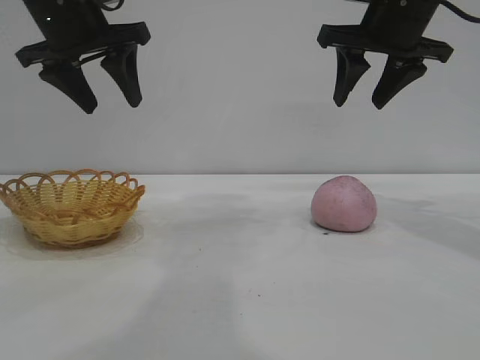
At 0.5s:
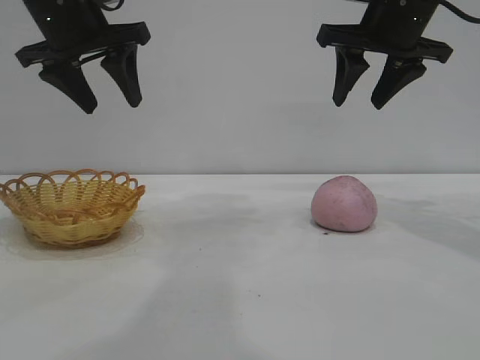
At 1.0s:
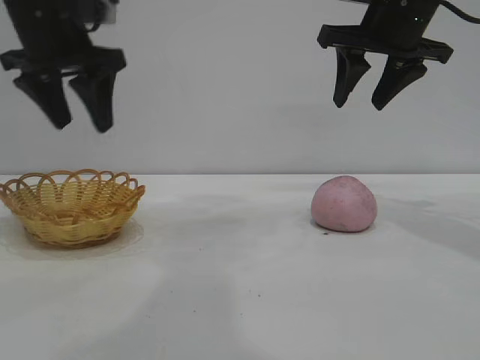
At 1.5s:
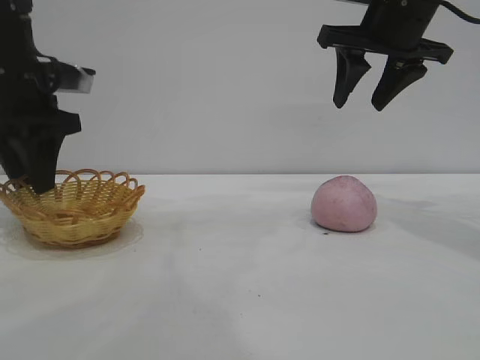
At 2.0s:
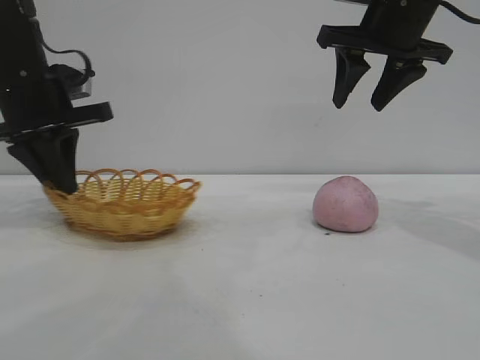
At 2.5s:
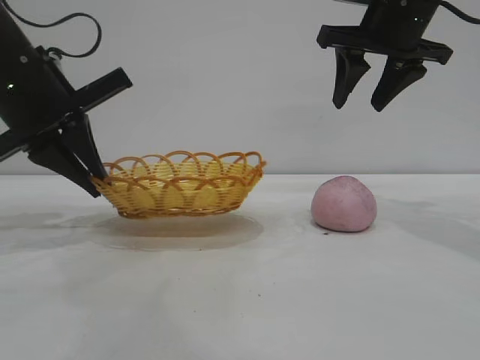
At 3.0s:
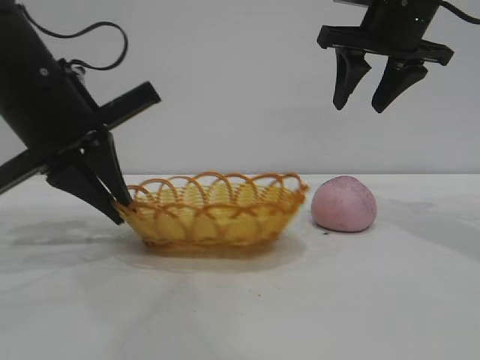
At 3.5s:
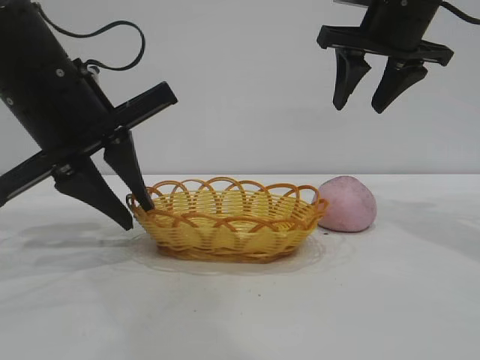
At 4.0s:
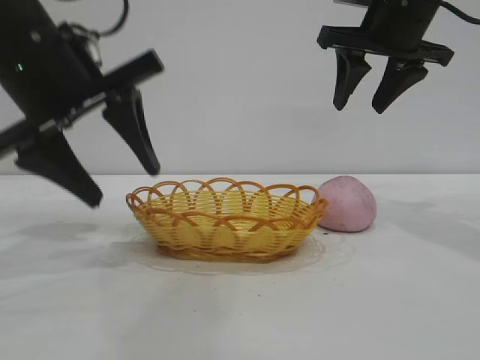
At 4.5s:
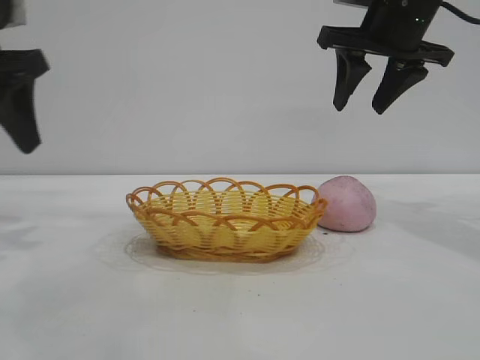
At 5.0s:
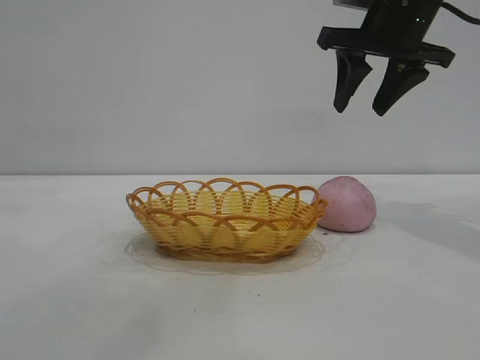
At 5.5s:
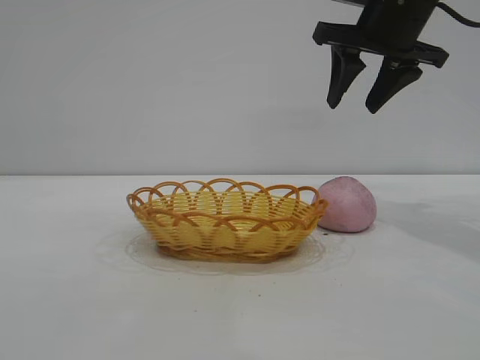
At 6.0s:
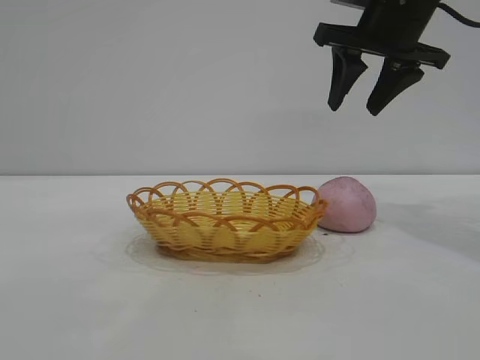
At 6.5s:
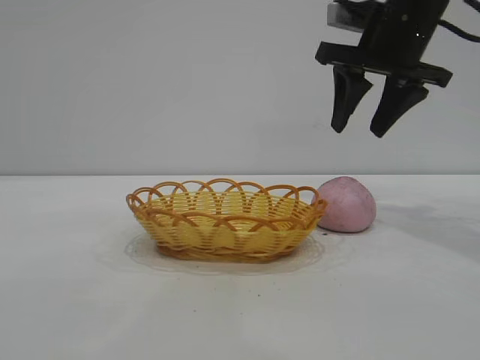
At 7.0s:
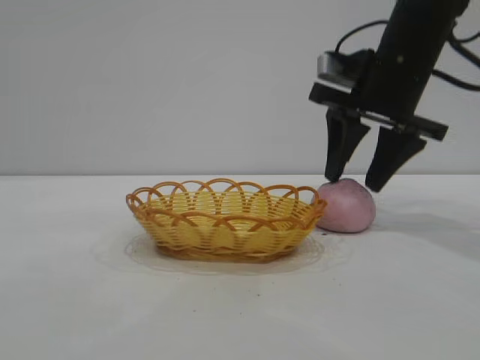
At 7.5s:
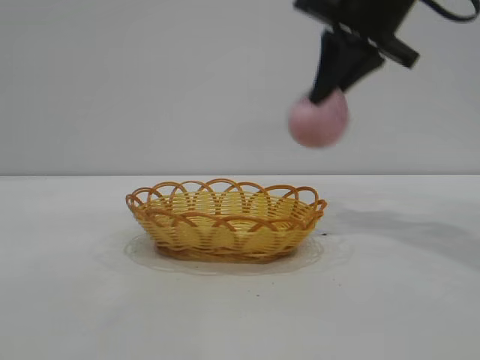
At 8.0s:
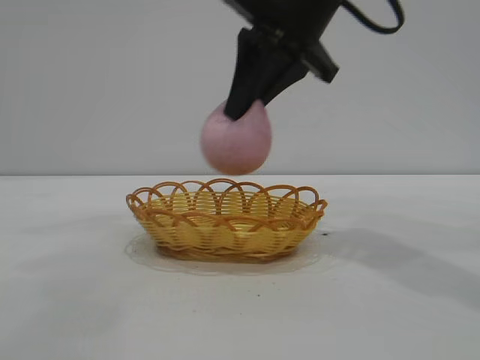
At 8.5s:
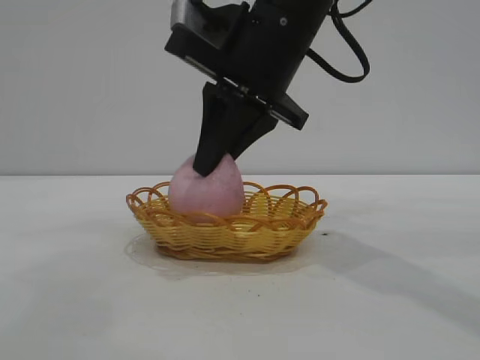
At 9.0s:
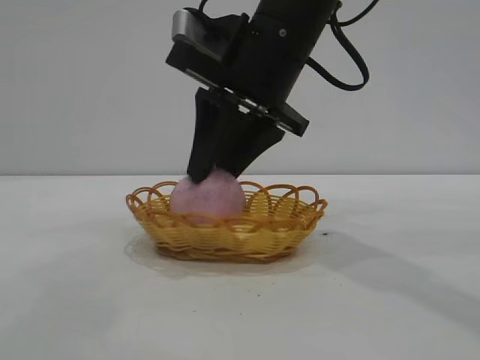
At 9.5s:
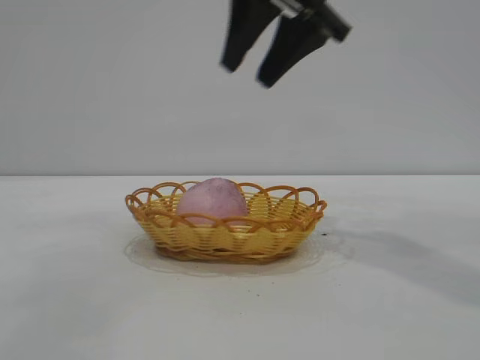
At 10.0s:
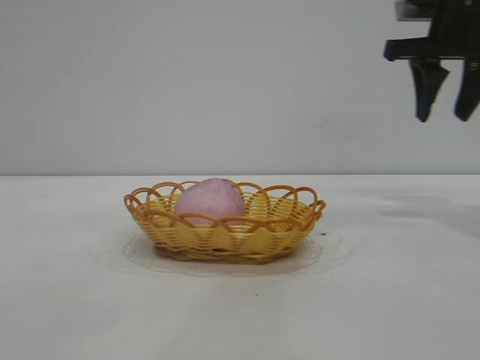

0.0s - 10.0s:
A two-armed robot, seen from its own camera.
Task of the whole recording: pick up the peach and put it into the basket.
Step, 0.0s - 4.0s: Move the basket to the center of view.
Step, 4.5s - 7.5s: Pick up the peach.
Step, 8.0s - 9.0s: place the peach into the basket.

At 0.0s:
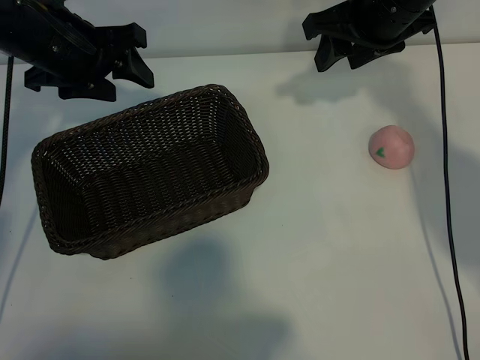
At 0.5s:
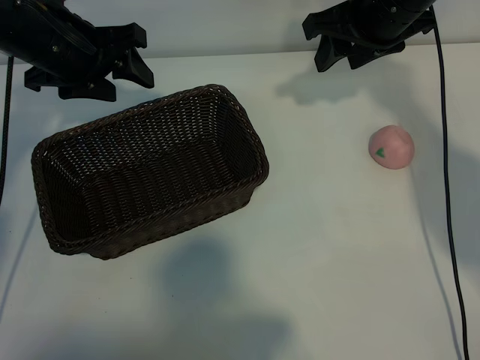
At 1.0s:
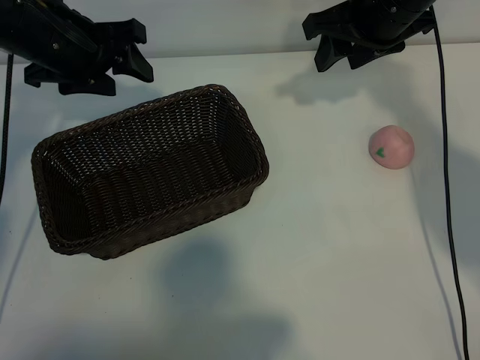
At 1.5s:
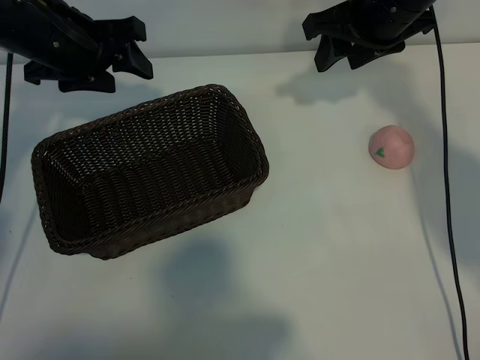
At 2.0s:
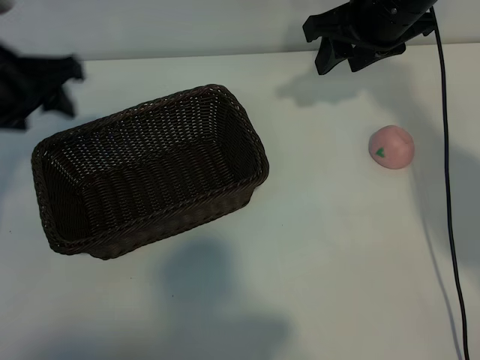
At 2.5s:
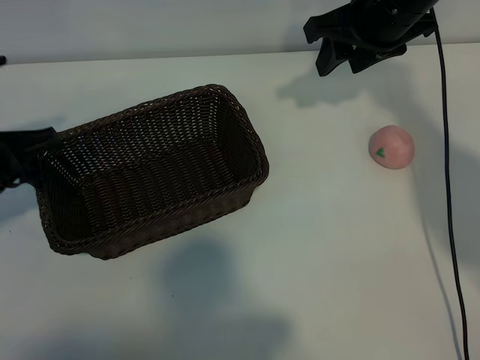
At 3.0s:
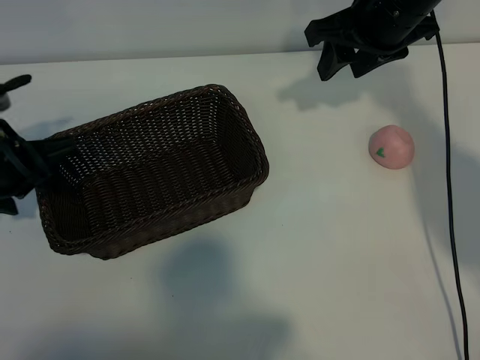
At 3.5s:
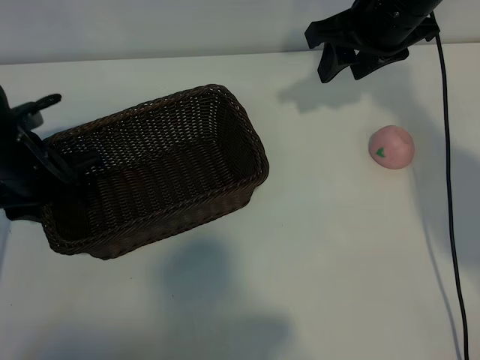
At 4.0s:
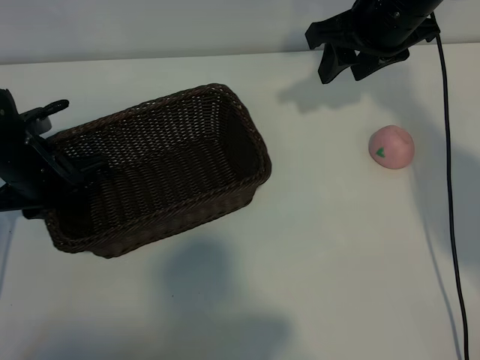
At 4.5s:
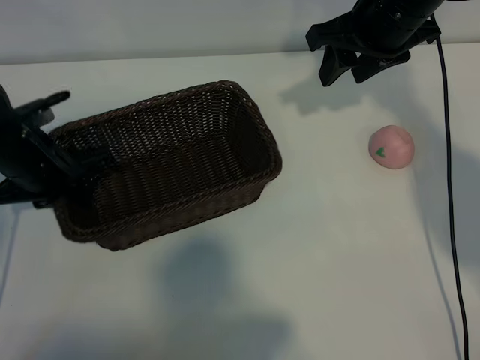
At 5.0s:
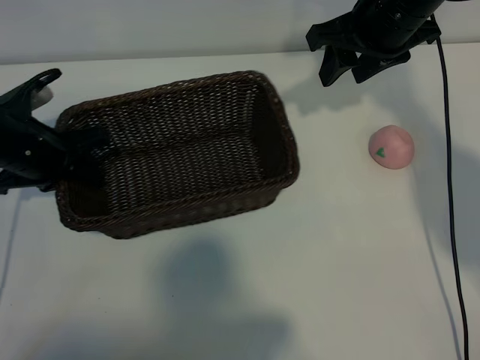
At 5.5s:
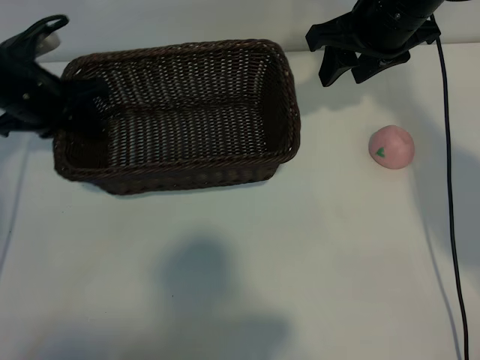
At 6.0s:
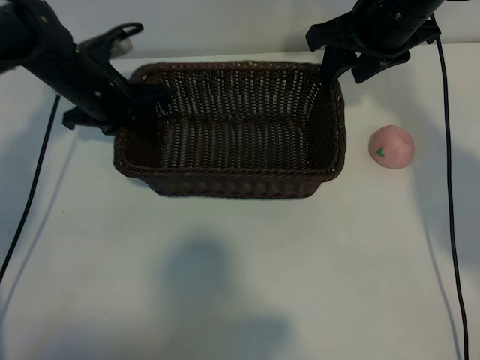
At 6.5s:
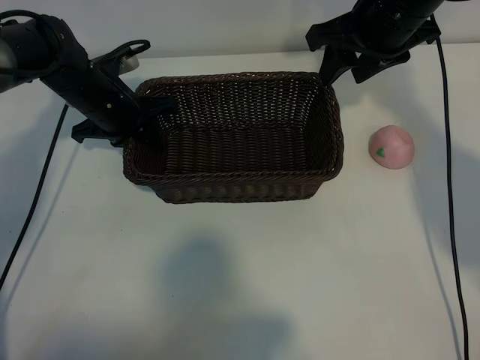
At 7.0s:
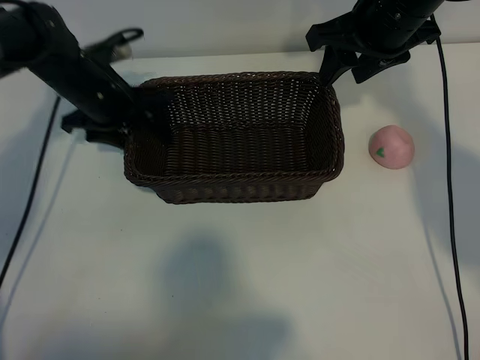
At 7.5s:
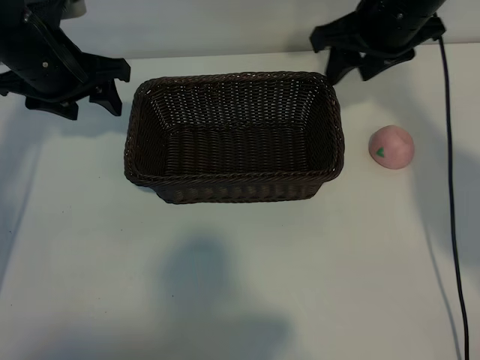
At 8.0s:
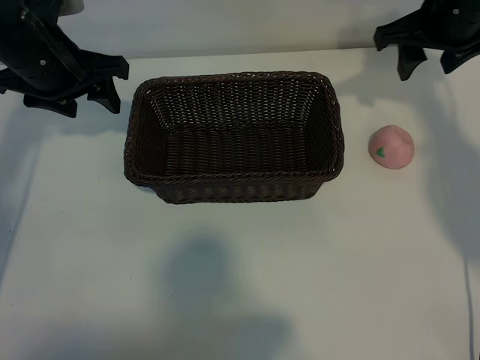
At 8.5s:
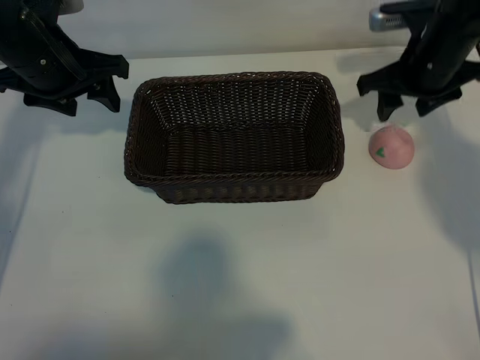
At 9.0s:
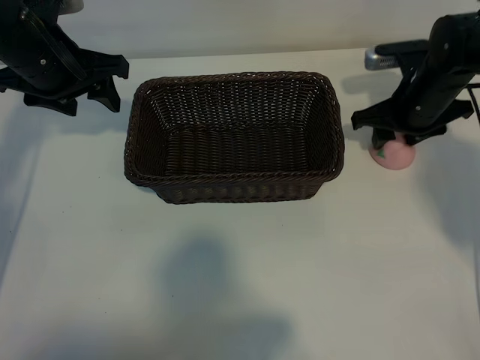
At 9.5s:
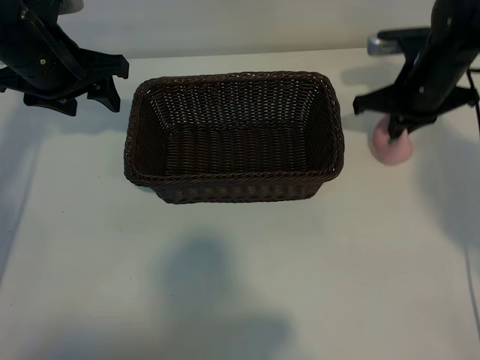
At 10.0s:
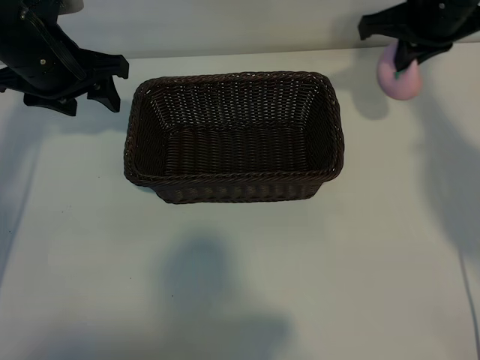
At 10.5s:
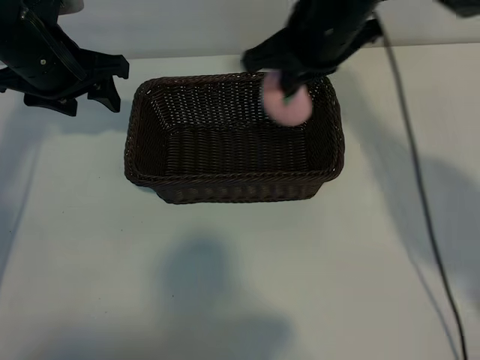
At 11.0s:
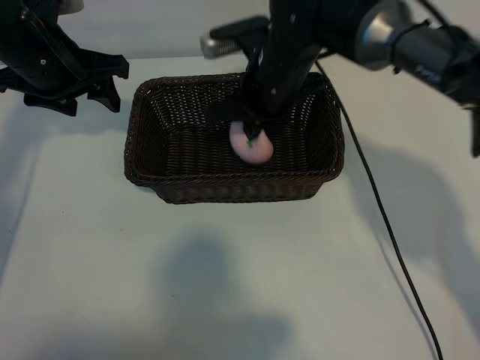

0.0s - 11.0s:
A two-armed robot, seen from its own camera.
Task of the whole recording: pick up the peach and put it into the basket.
Step, 1.0s - 4.0s: Grasp the basket with left gripper.
Step, 4.5s - 6.5s: Place the basket in the center of view with left gripper.
Step, 7.5s - 9.0s: Grasp the peach with right gripper.
